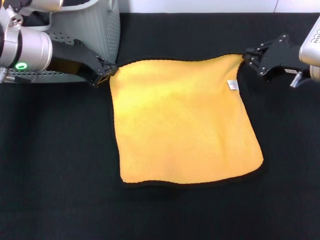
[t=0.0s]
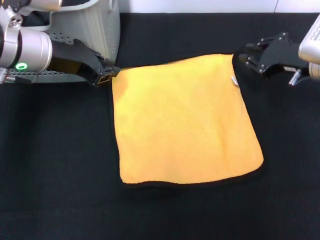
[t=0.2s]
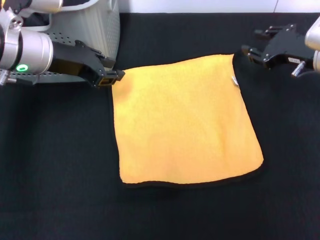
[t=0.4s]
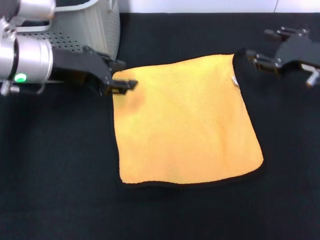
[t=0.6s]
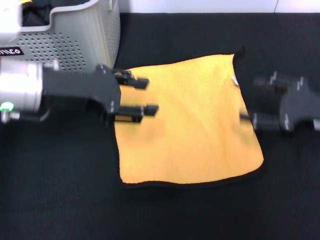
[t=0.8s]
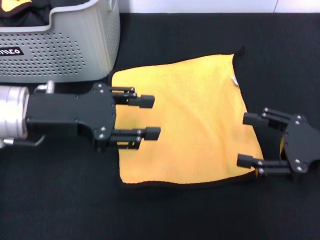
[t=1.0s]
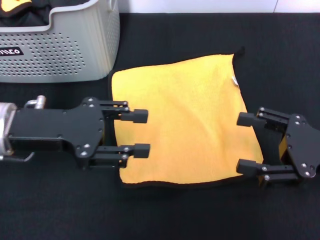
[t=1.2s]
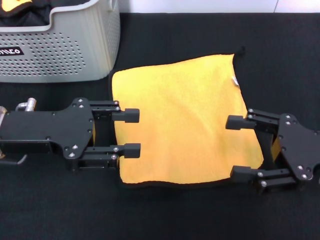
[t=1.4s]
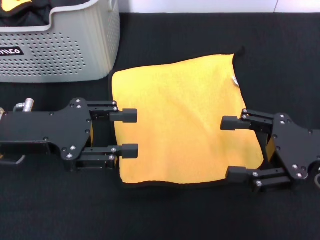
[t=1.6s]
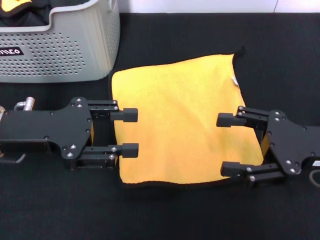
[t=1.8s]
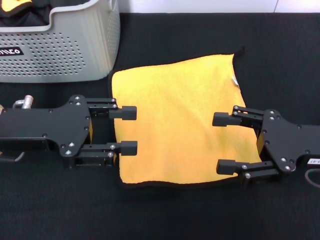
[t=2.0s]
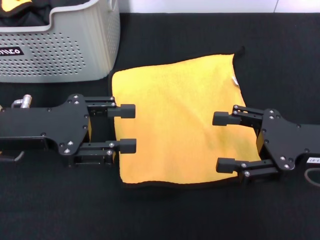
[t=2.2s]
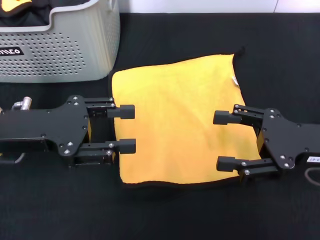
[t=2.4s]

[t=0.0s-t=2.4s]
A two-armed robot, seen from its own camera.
Task of the whole recording: pick up the towel from the storage box and lay it flat on the black tablecloth.
t=0.0s to t=1.2s: The grippers both shift backward by approximately 15 cm. The right gripper opens its fingers. Meanwhile the left gripper opens.
t=1.2s to t=2.4s: The grippers make only small movements.
